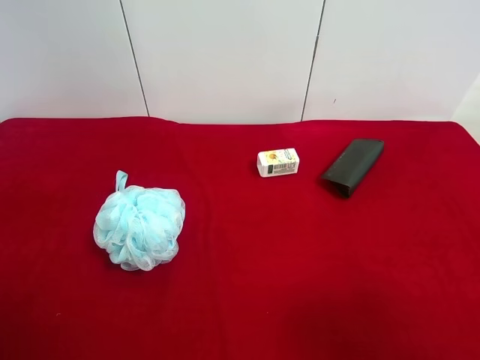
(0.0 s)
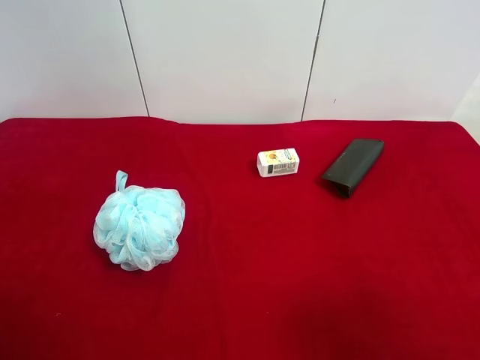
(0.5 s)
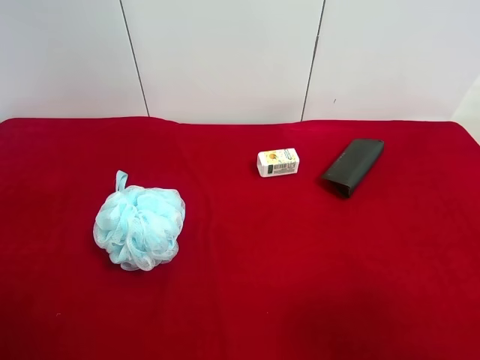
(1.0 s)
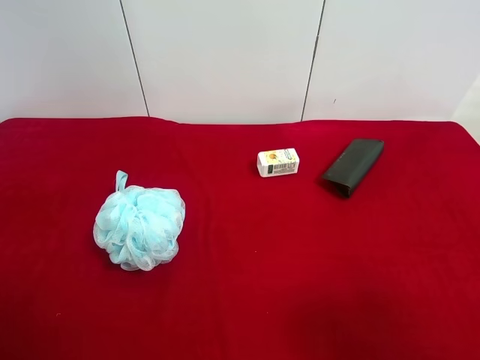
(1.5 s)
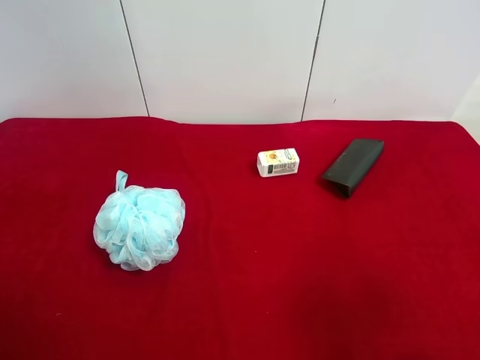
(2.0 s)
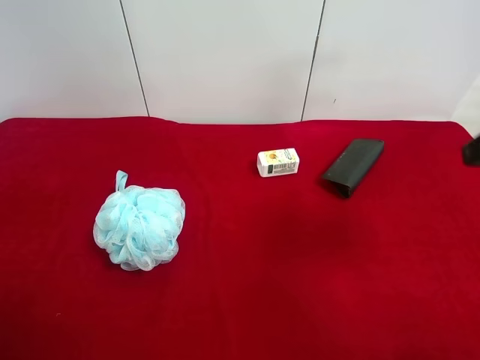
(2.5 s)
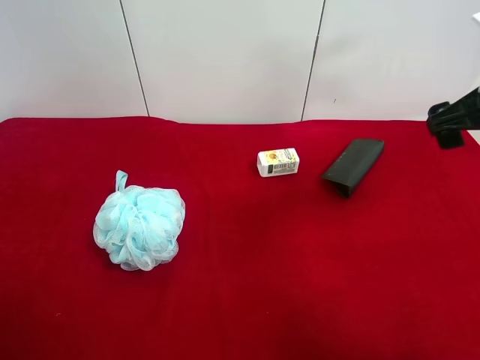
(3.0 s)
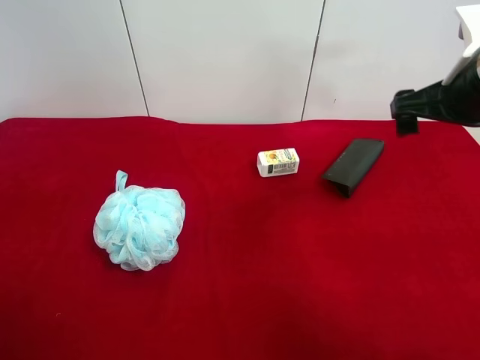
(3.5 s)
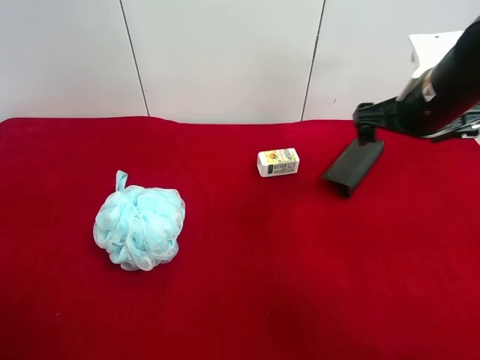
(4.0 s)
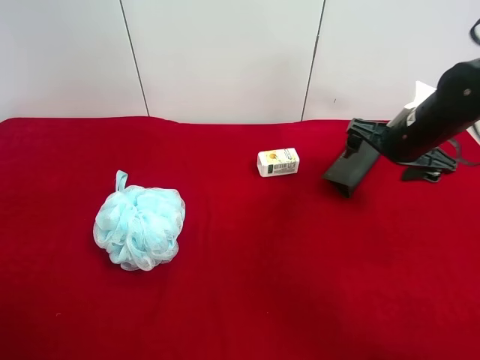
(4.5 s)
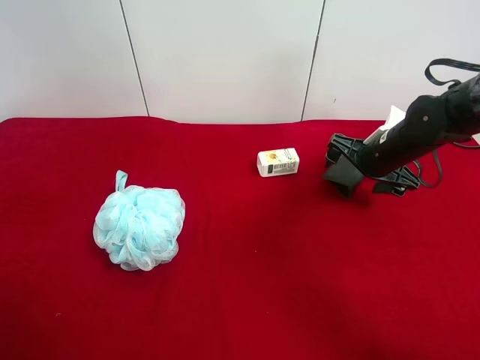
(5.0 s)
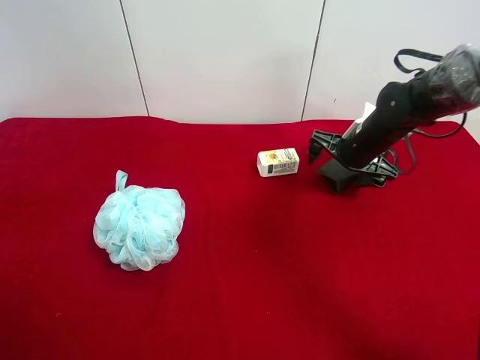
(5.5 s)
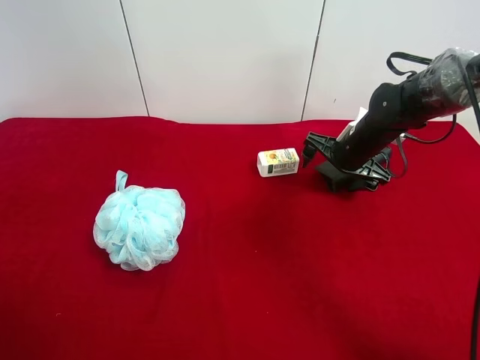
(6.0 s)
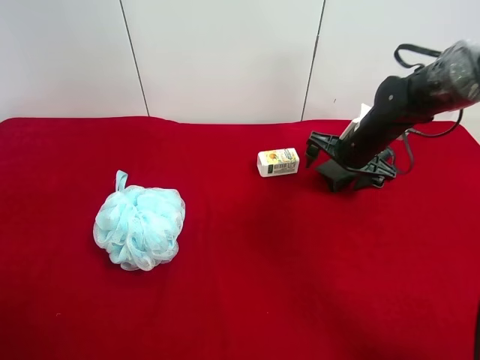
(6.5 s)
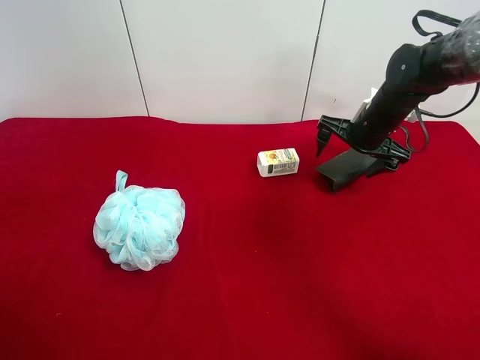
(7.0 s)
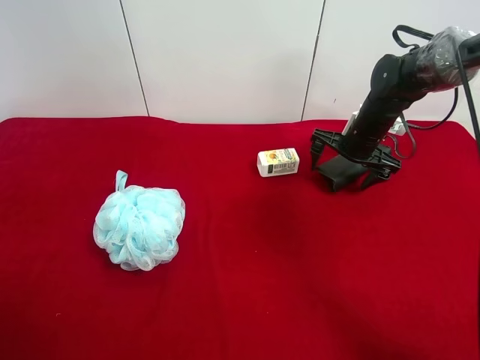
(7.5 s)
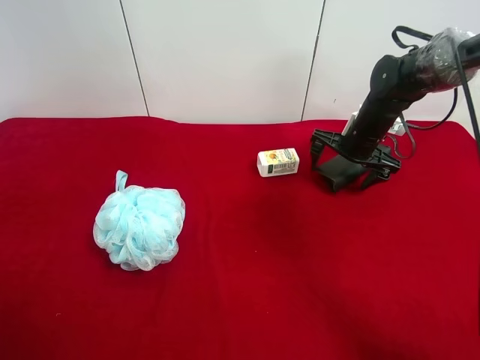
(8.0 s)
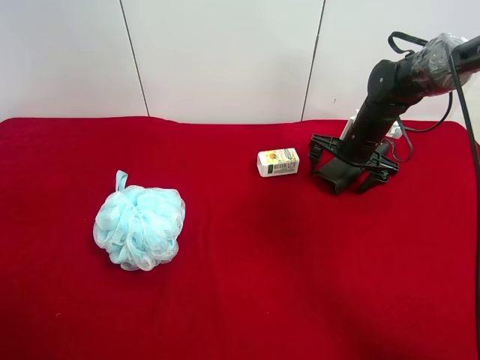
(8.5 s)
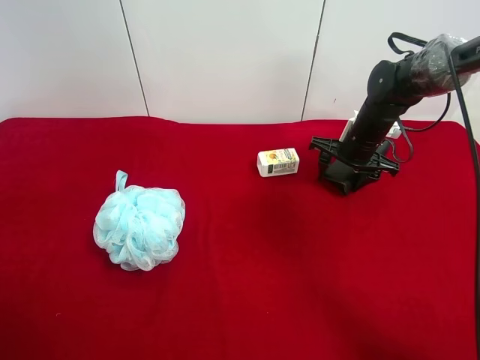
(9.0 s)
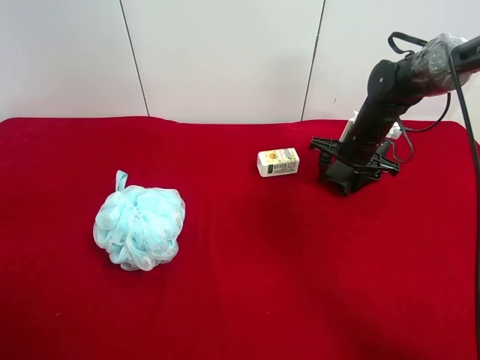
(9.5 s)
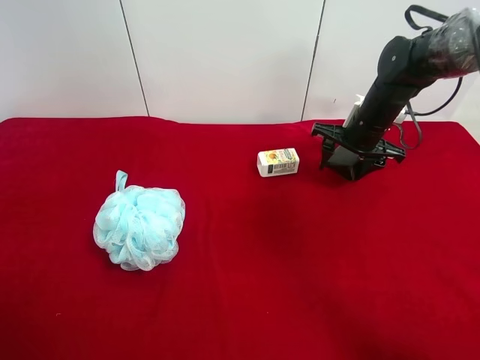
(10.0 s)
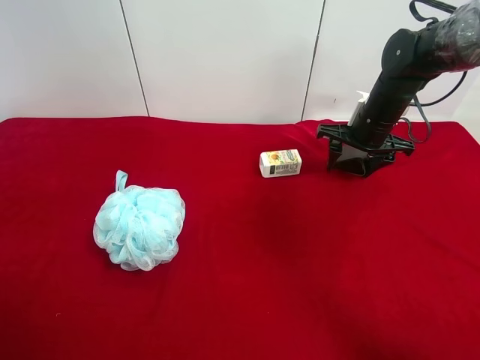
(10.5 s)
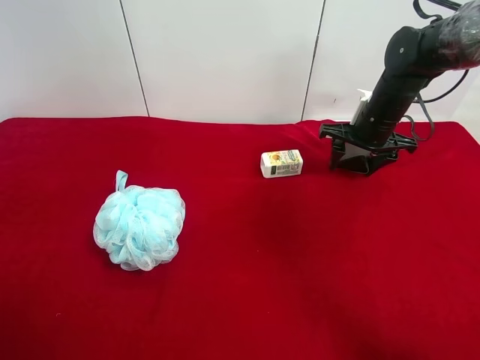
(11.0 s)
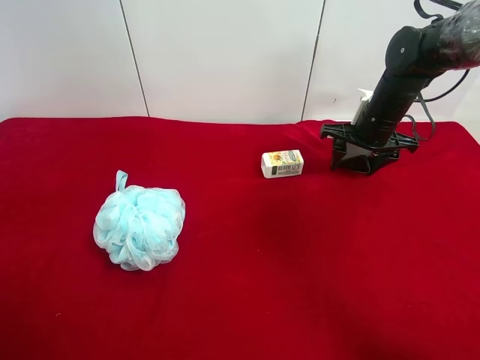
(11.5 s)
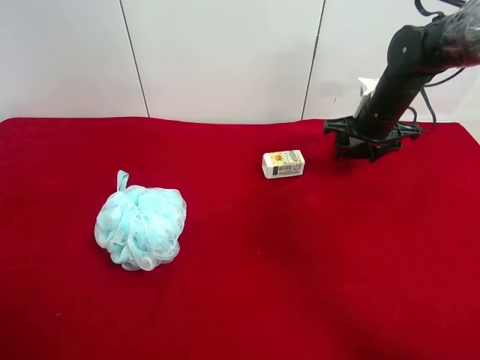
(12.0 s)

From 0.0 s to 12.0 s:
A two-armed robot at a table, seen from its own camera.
Task of the whole recording: use the right gripper to pick up the item and transfer it from the right gripper to the left gripper.
Step, from 0.0 s to 8.5 s: Use the right gripper to grab the eyeglass case on the right side of the table.
From 2.0 s to 4.0 s: The right gripper heads forward, covering approximately 25 cm.
From 4.0 s to 6.0 s: The right gripper is displaced downward and forward by about 15 cm.
From 6.0 s to 8.0 s: The grippers make only small movements.
From 8.0 s to 10.0 s: The right gripper closes its fingers.
From 10.0 s to 12.0 s: The grippers make only small movements.

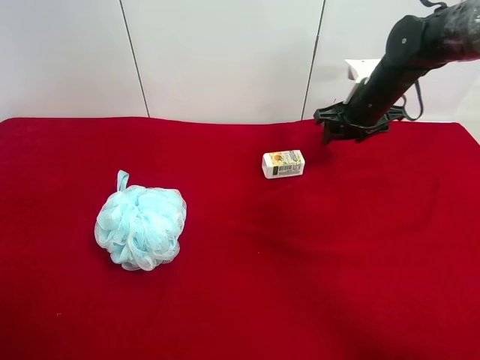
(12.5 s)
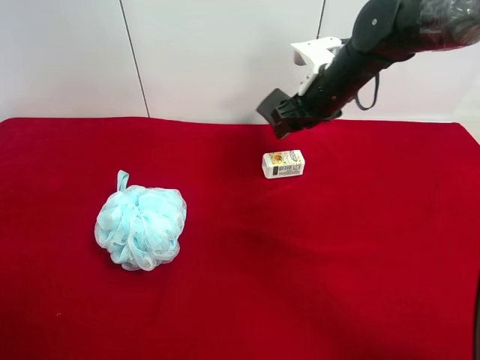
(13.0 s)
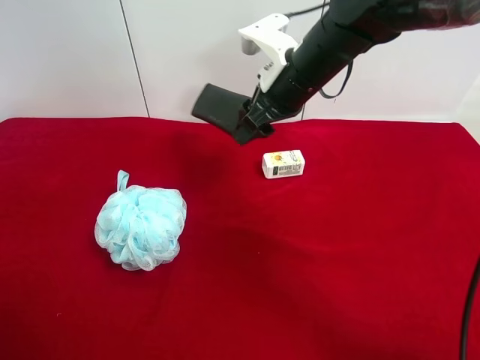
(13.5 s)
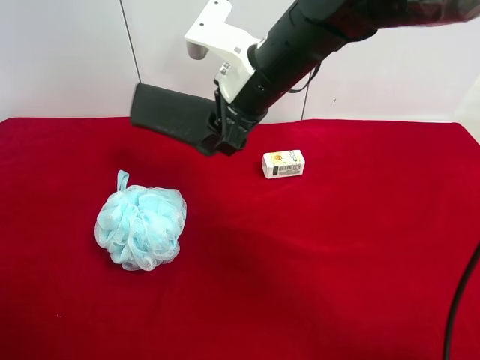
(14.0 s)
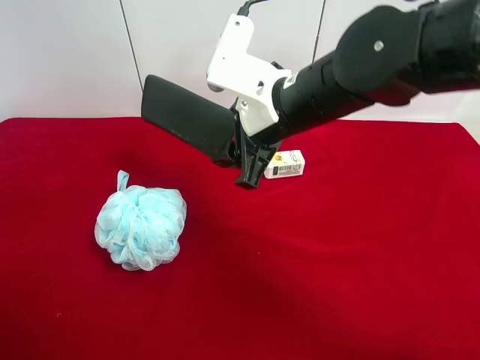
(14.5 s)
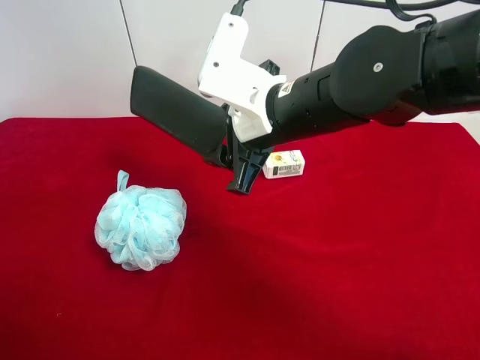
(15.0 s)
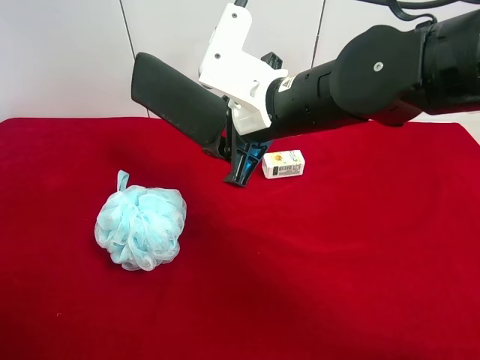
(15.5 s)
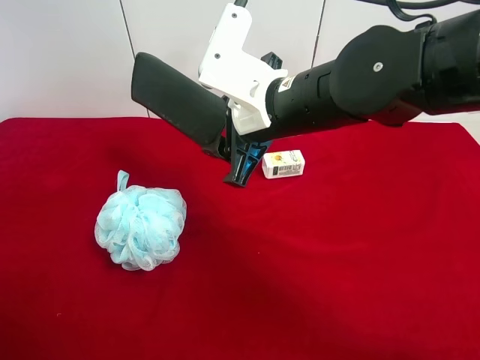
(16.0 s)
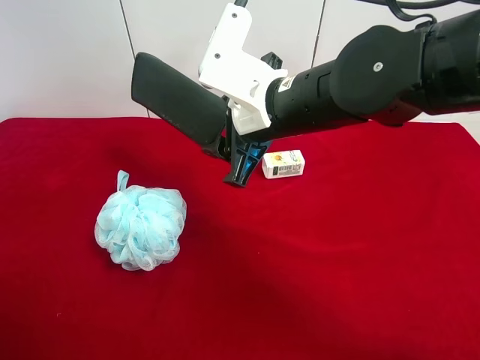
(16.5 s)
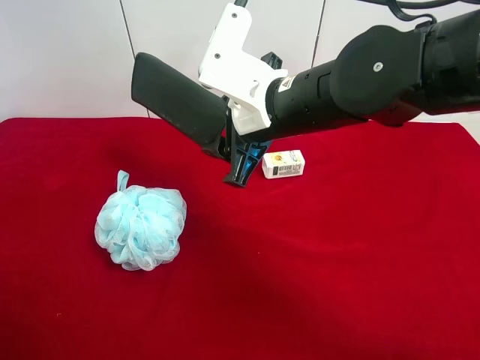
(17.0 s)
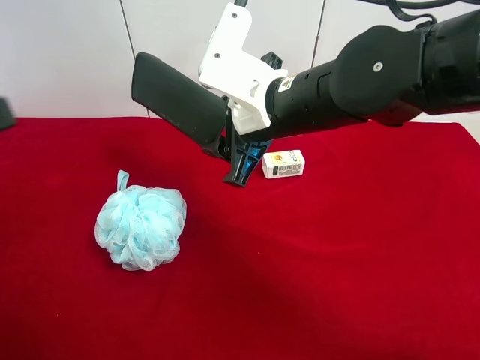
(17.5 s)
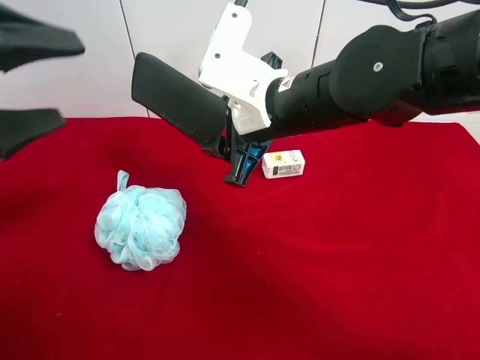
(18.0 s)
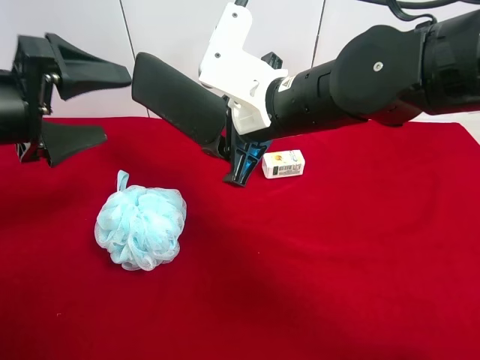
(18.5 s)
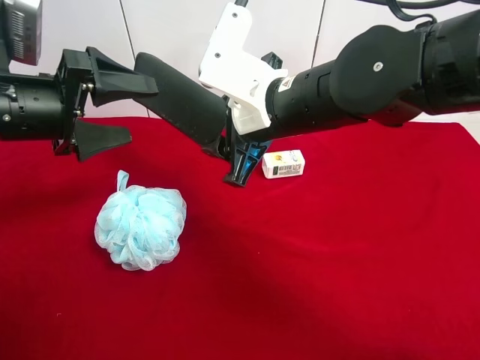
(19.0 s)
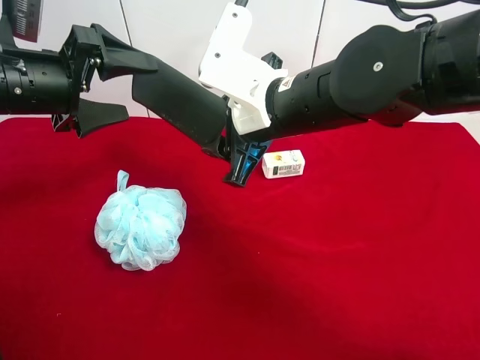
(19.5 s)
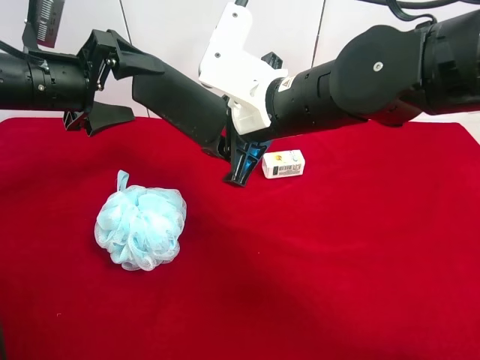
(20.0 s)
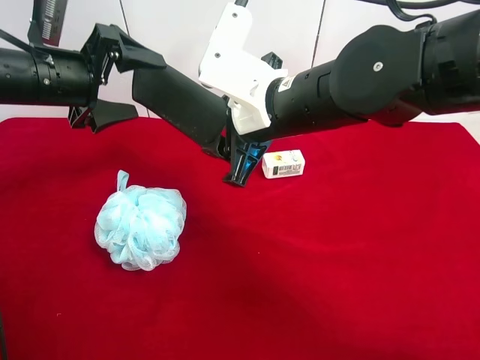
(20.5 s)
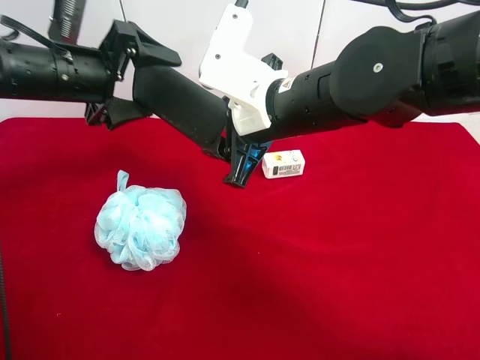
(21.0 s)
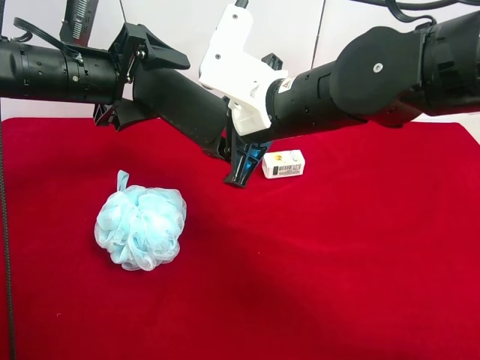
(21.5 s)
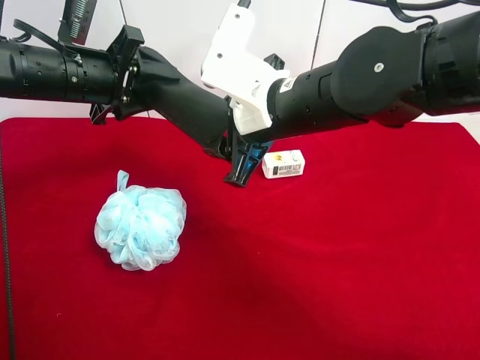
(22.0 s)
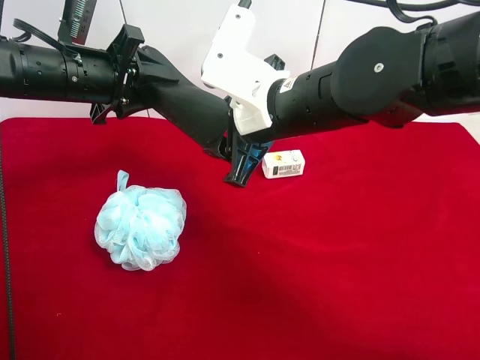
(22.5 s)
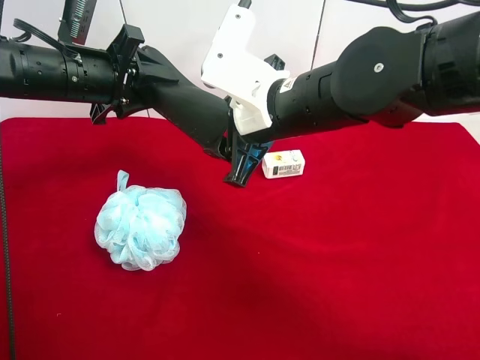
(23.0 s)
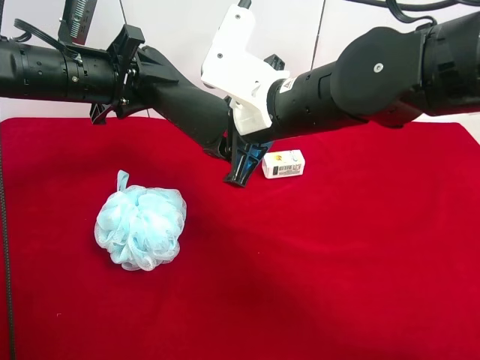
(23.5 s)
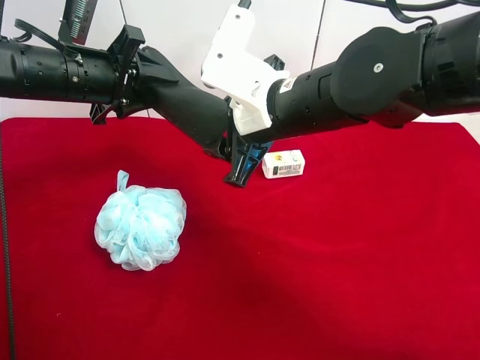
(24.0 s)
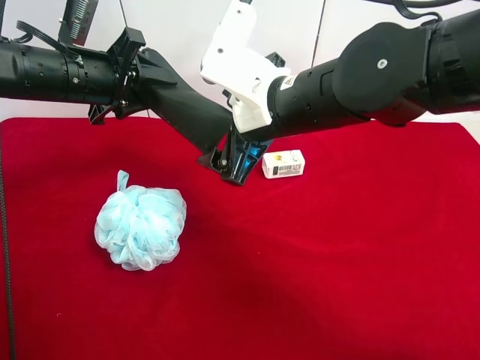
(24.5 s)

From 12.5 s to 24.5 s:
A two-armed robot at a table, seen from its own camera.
Task of the whole recording: use the right gripper to pick up the item and transfer it from the right gripper to the left gripper.
From 12.5 s to 14.5 s: The right gripper travels to the left and backward by approximately 20 cm.
From 14.5 s to 16.5 s: There are only small adjustments of the grippers.
From 16.5 s to 18.5 s: The left gripper moves forward, approximately 20 cm.
From 18.5 s to 20.5 s: The left gripper is displaced forward by roughly 10 cm.
From 20.5 s to 22.5 s: The left gripper closes its fingers.
From 22.5 s to 24.5 s: The right gripper opens its fingers.

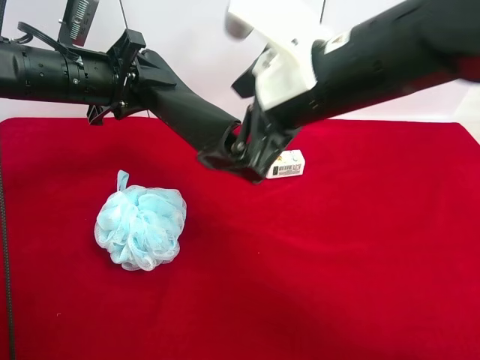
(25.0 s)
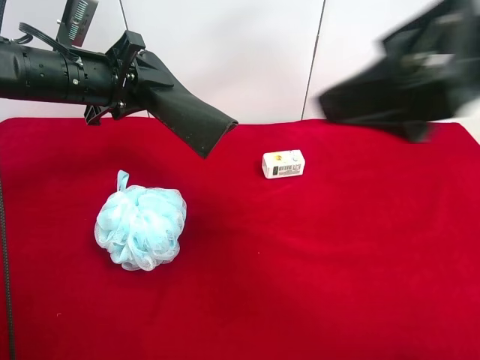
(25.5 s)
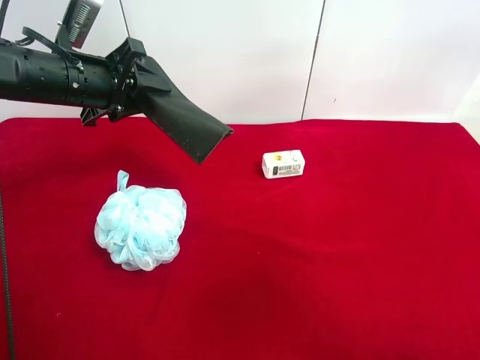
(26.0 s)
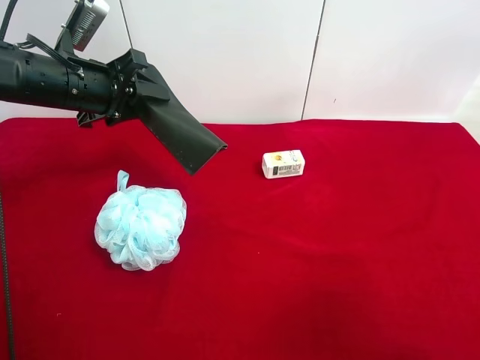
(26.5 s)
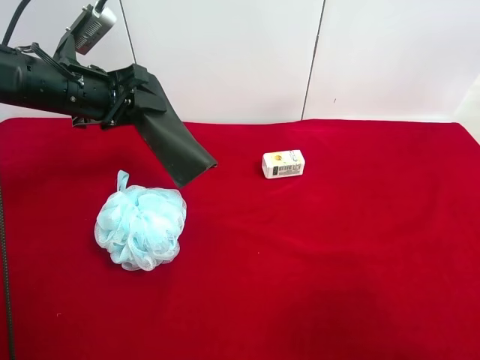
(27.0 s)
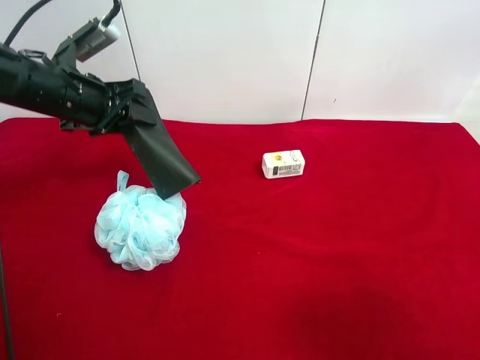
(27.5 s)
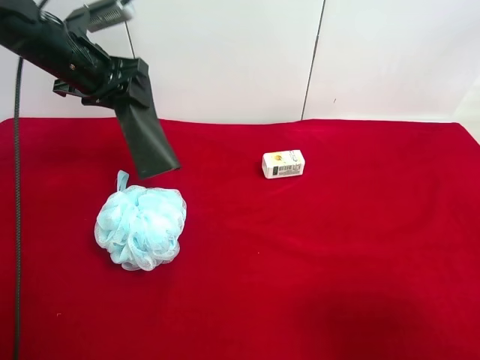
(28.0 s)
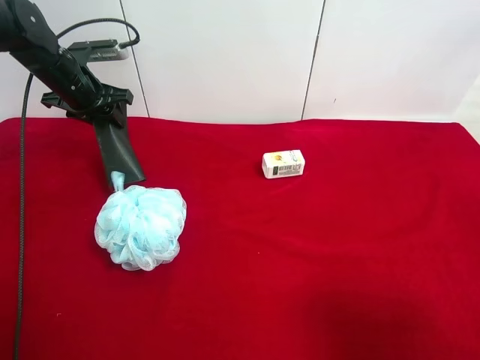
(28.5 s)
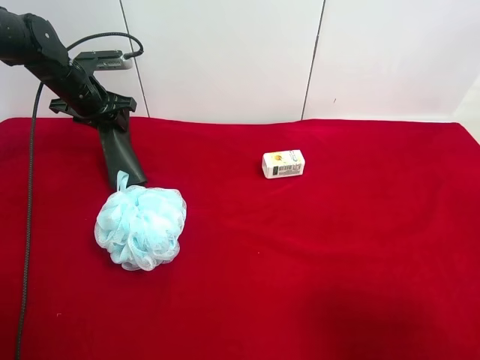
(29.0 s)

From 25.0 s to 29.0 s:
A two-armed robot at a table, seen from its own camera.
Task of the whole recording: use the right gripper to pick up the item and transfer it from the right gripper to the left gripper.
From 25.0 s to 27.0 s: The right gripper heads to the right and backward, covering about 30 cm.
From 27.0 s to 29.0 s: The left gripper travels forward and to the left by approximately 15 cm.
